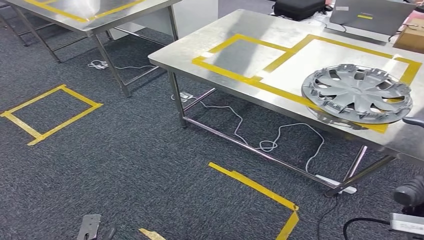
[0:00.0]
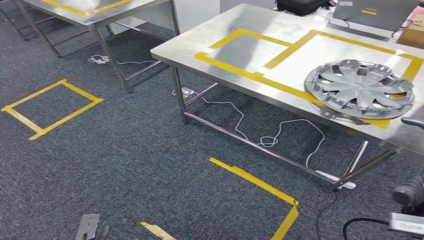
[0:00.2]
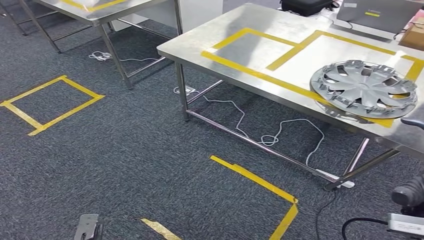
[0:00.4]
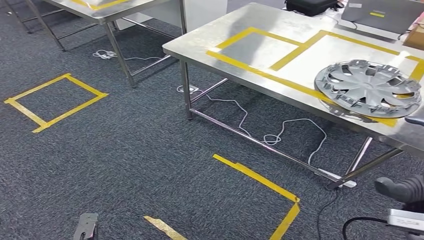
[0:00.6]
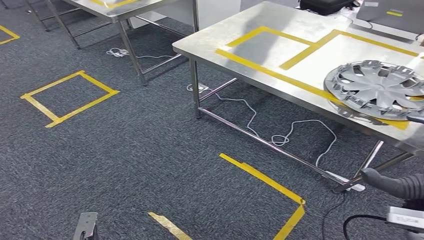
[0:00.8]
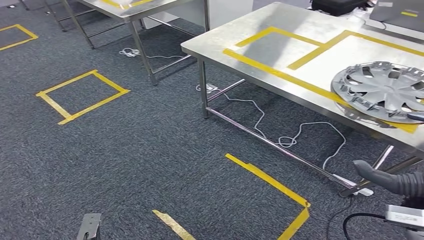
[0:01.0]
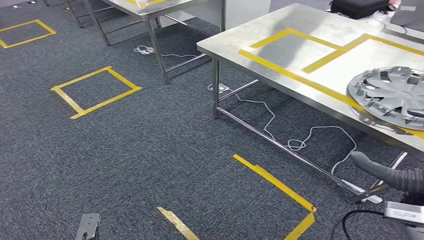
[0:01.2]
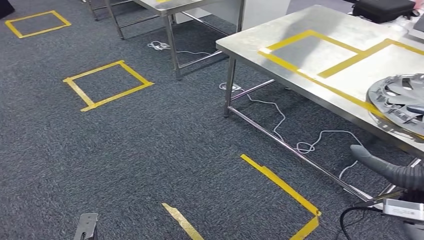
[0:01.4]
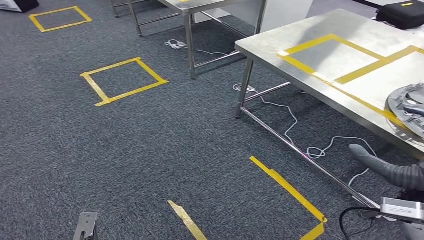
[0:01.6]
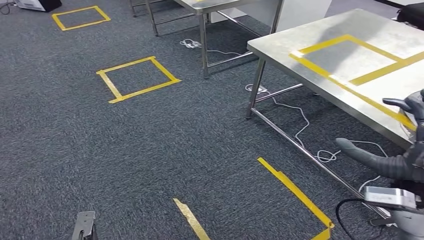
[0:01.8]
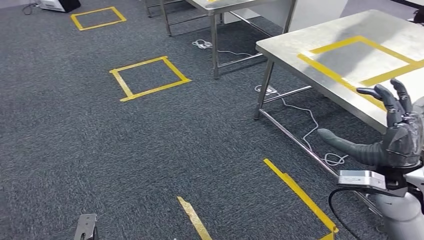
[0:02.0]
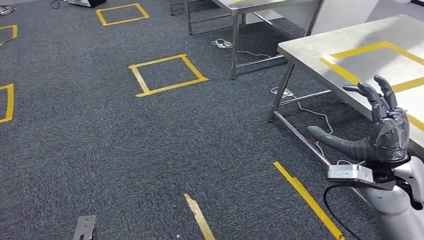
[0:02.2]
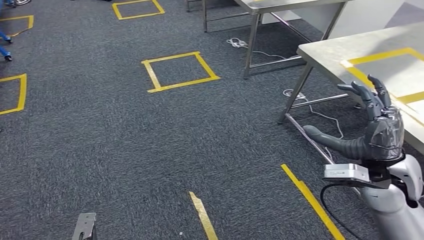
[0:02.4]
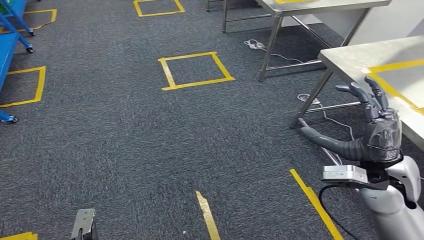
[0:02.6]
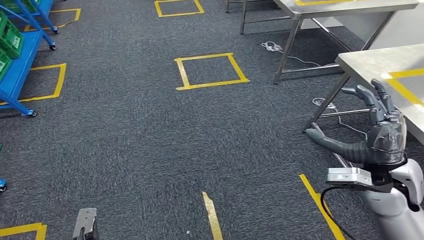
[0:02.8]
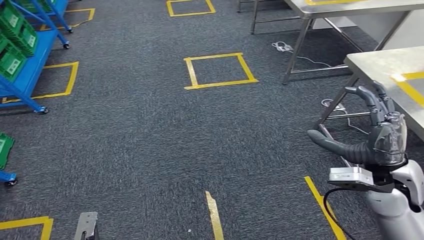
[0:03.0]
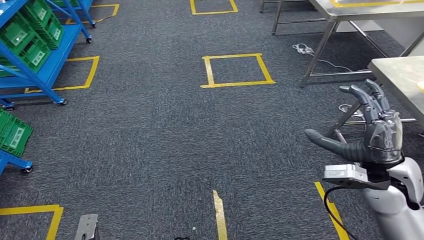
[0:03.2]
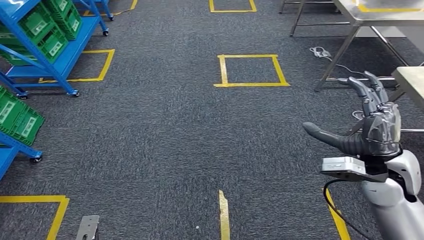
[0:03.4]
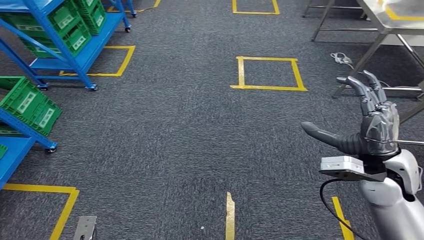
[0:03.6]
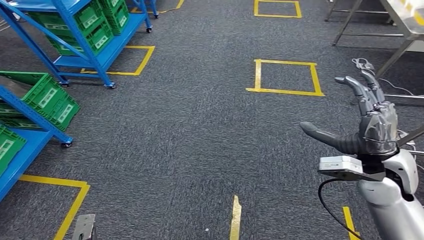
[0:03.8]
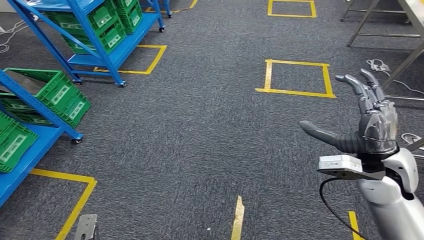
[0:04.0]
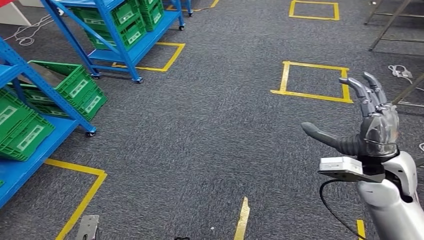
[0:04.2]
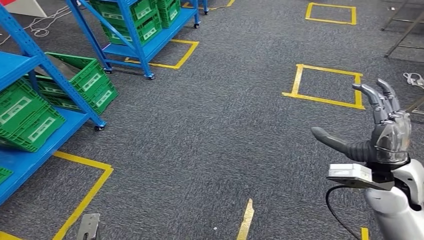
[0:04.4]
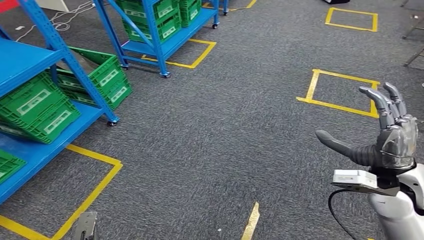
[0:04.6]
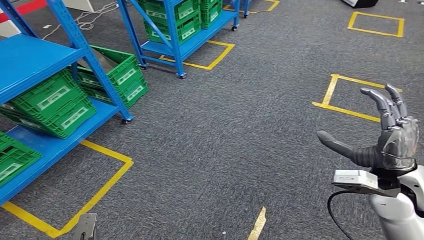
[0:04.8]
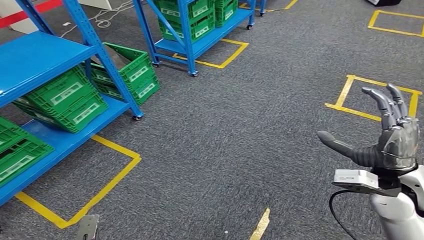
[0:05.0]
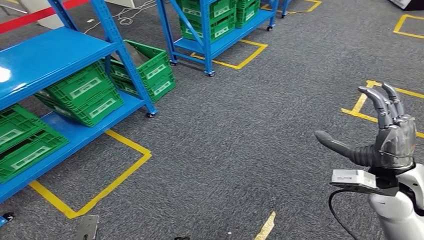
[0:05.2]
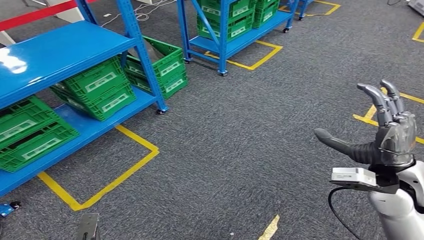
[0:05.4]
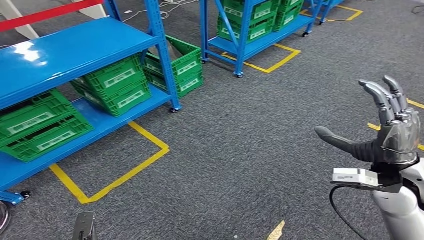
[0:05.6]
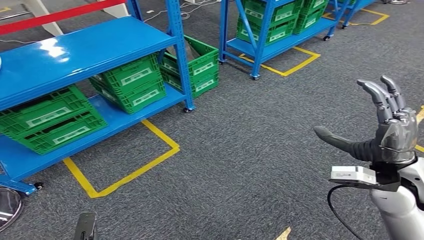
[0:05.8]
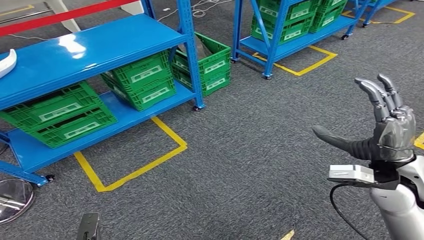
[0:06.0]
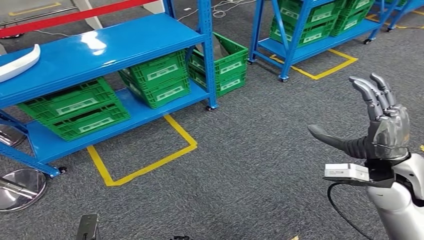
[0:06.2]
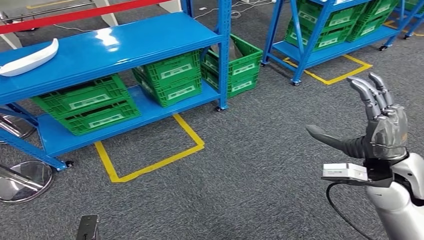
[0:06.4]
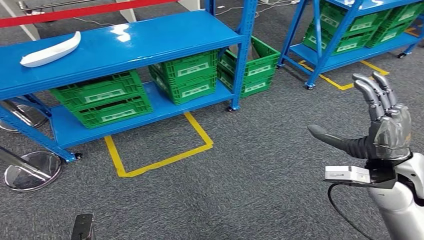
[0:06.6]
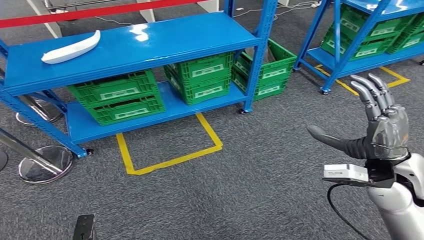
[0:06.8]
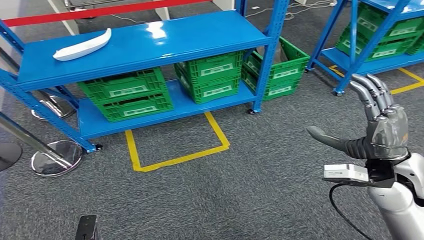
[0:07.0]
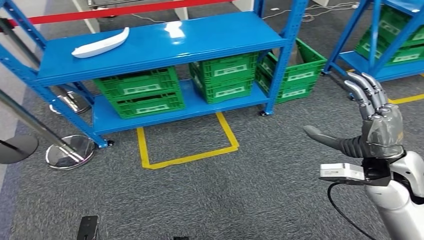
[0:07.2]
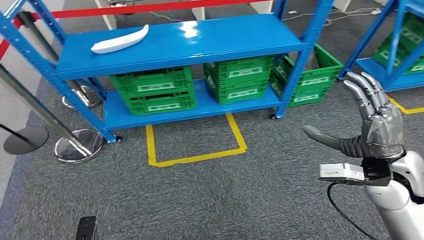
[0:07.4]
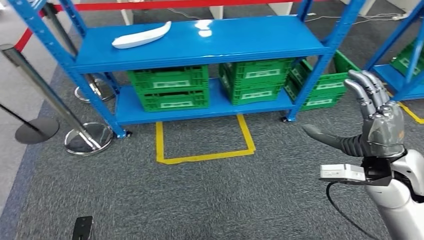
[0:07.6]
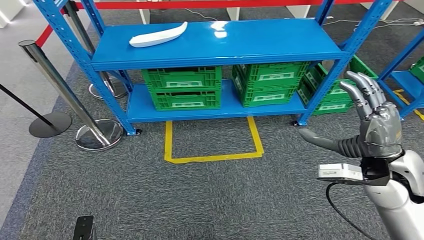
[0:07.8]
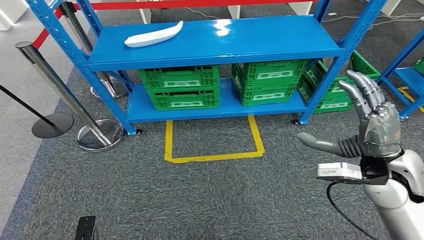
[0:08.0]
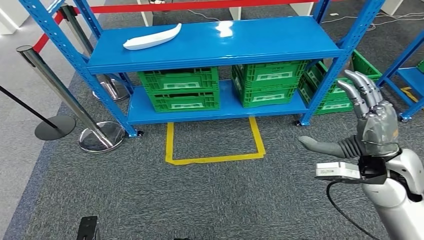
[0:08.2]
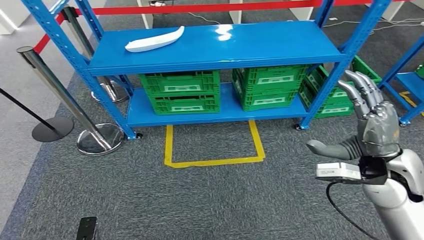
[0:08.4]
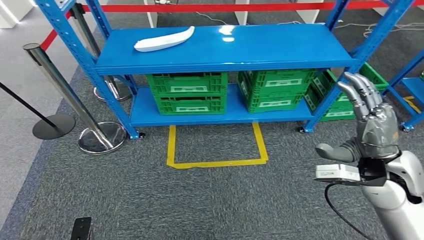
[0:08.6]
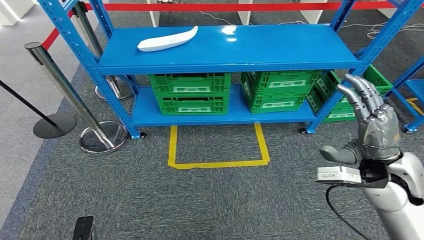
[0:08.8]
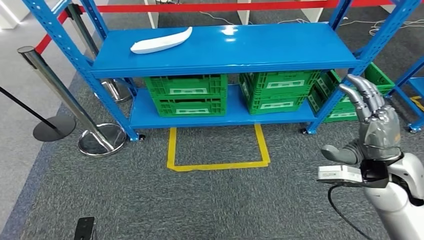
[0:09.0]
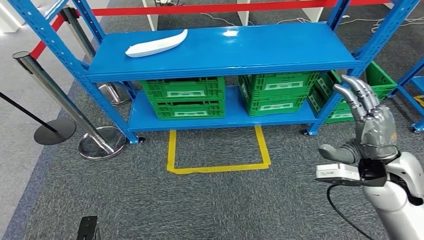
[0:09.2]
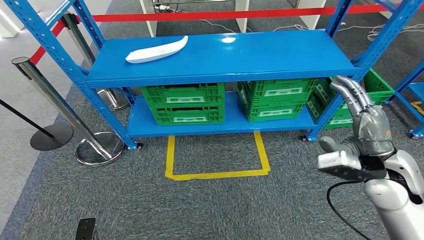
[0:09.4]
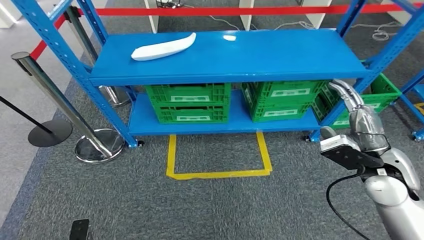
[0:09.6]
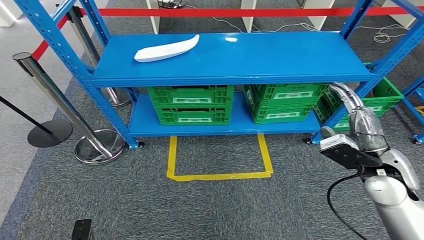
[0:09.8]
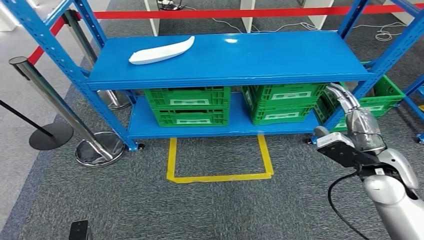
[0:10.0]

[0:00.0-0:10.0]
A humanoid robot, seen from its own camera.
Step, 0:00.0 to 0:10.0: Return to the initial position at the workbench.
